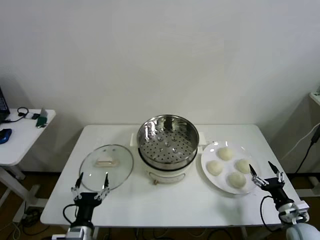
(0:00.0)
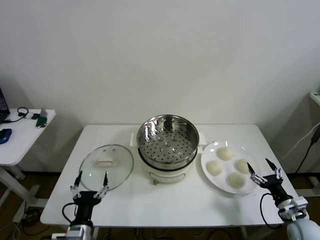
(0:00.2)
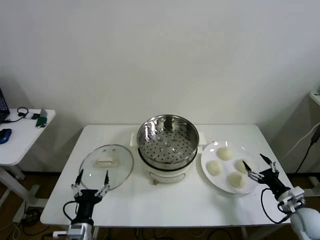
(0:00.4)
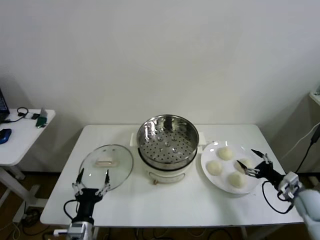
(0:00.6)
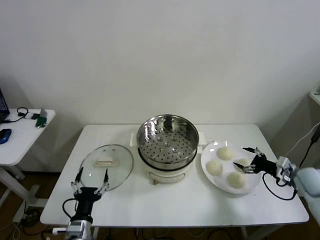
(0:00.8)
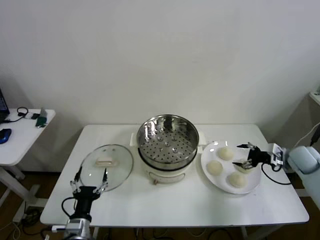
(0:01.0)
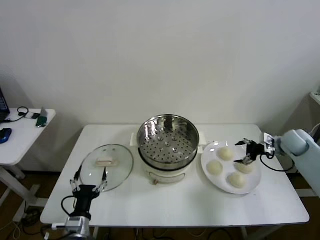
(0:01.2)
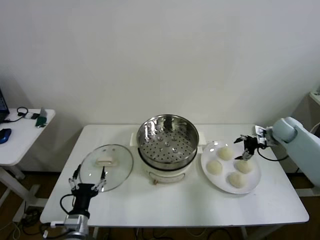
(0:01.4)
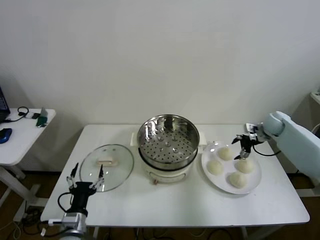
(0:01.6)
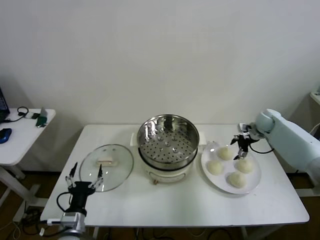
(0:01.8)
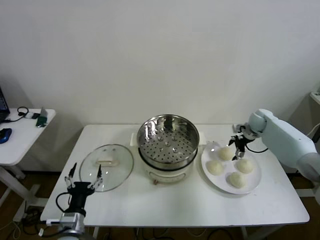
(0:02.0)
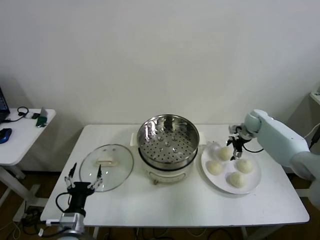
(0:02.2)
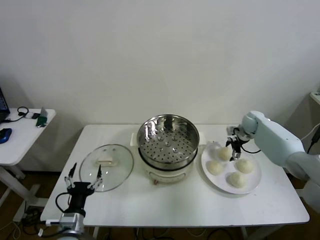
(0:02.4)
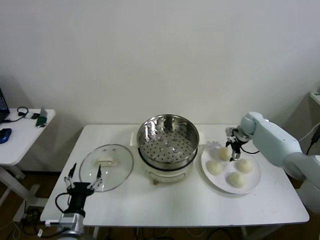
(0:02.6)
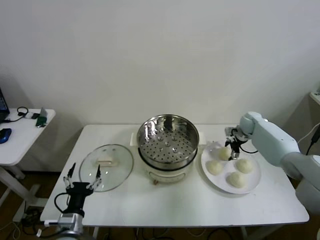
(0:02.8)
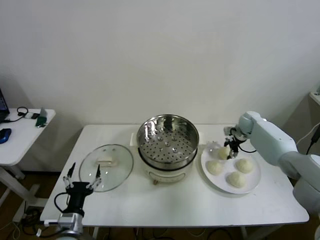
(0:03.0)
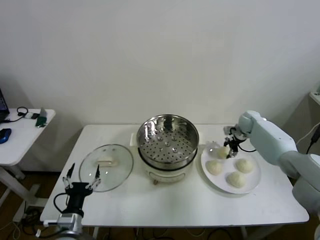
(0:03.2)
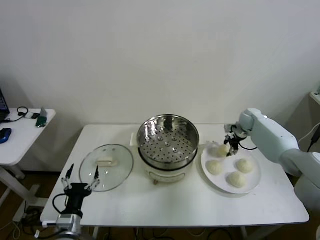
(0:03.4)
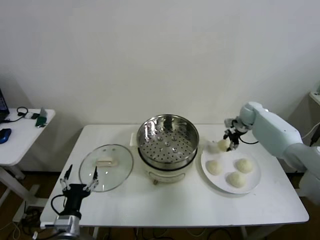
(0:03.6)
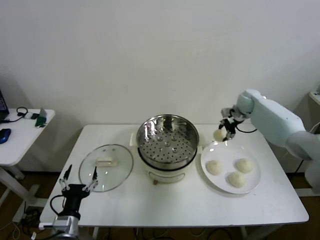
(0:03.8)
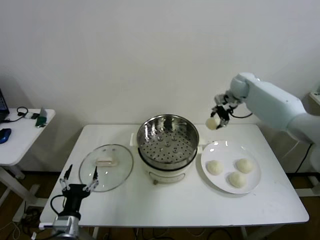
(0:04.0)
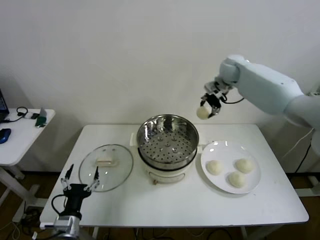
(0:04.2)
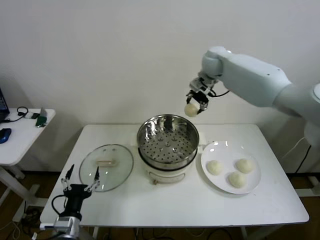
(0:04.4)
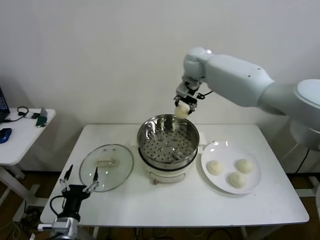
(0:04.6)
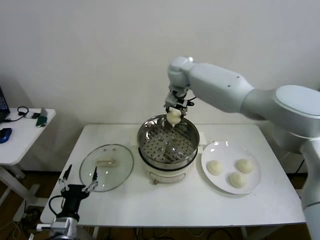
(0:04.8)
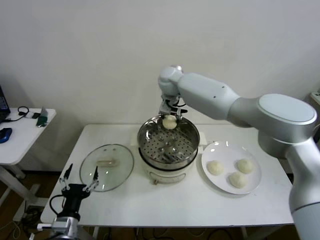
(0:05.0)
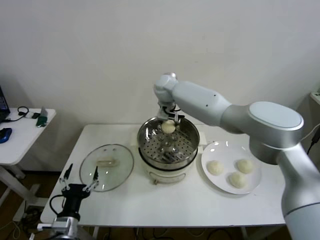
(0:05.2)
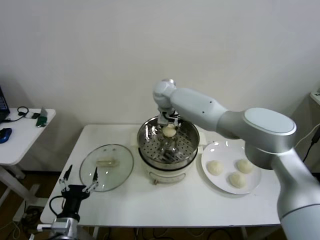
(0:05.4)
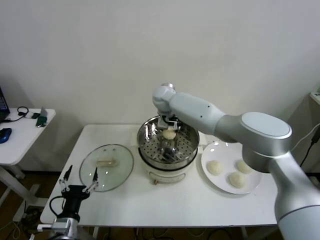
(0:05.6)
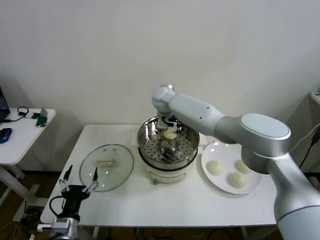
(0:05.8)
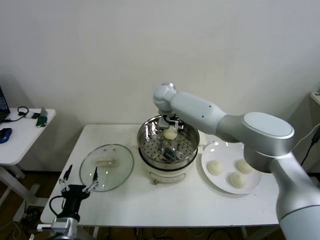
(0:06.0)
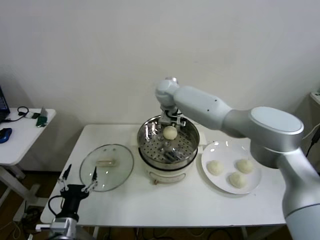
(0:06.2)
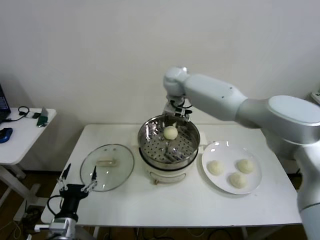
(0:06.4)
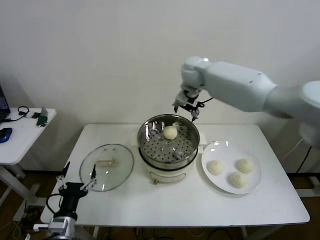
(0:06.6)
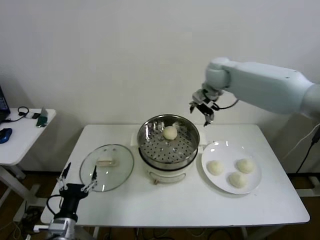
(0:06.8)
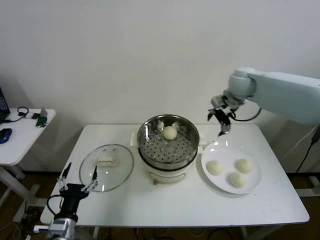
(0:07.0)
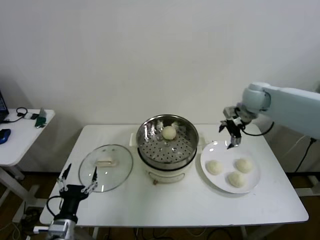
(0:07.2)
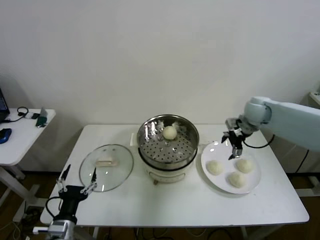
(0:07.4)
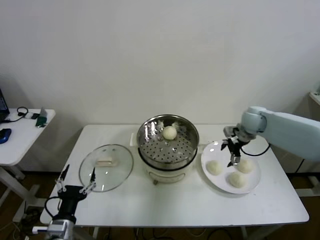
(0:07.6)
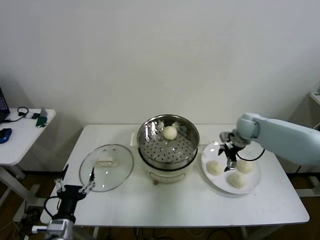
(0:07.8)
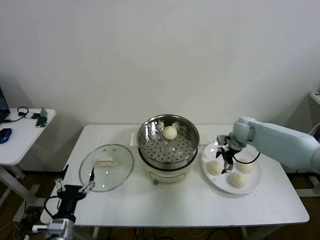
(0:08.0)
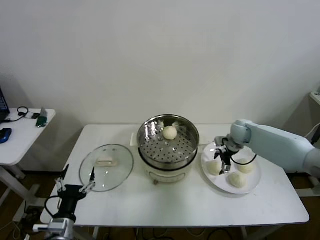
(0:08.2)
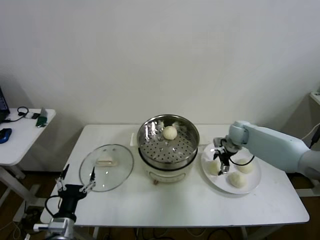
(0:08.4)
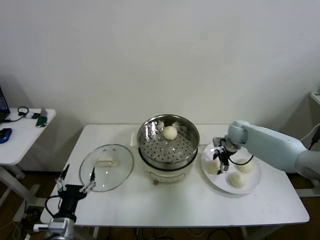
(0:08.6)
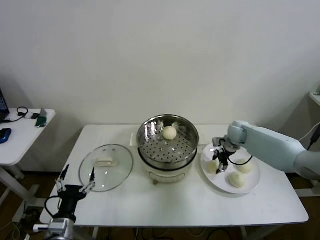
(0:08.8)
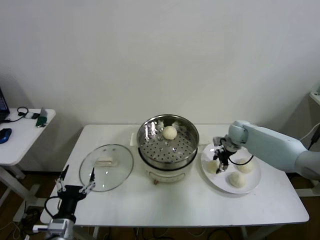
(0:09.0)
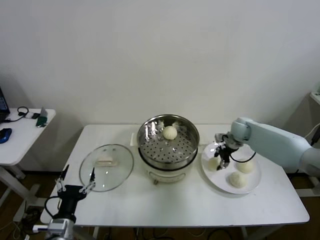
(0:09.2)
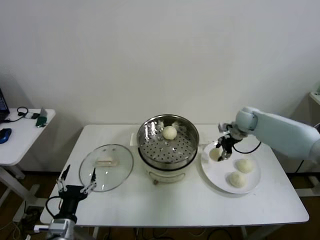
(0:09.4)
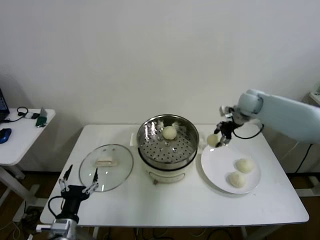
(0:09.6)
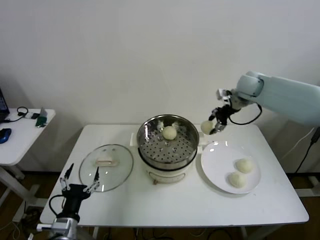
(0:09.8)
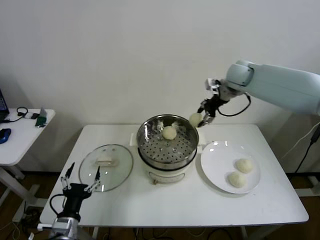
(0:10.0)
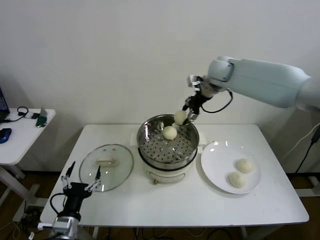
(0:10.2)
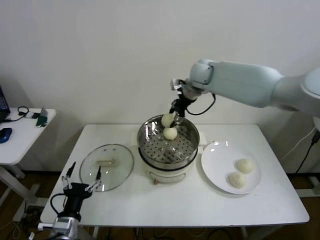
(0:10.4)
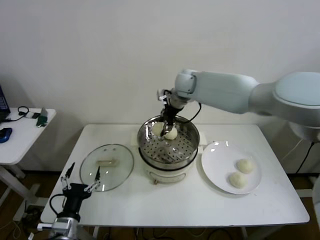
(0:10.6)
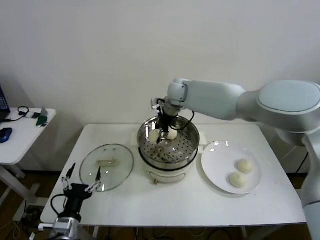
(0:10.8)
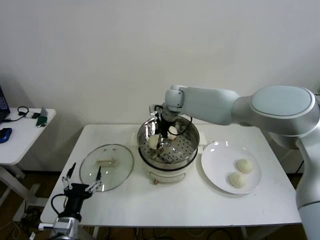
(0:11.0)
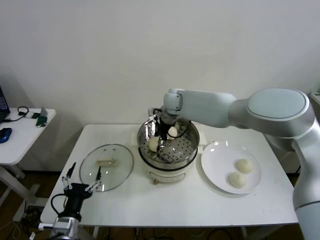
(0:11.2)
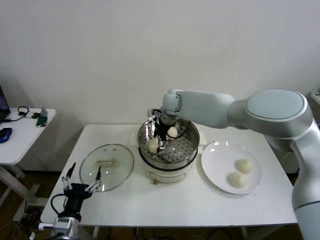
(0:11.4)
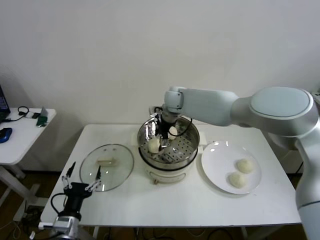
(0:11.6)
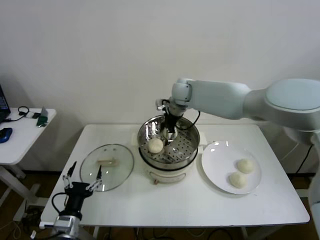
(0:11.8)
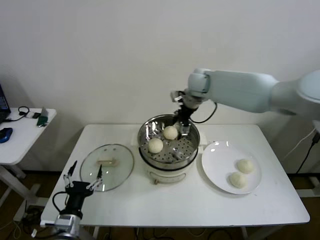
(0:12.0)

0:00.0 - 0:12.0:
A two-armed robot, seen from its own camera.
Step, 0:00.0 - 0:03.0: Grasp the baozi in the plate with right gripper.
Step, 0:03.2 - 0:05.8: Place the baozi on the steamer with right gripper.
Step, 0:06.0 - 0:09.0: Grasp the baozi in the plate with right gripper.
Step, 0:09.2 - 0:11.2: Place the baozi on the steamer with right gripper.
0:01.6 - 0:03.0: The right gripper shifts some 5 cm to the left, and closes.
0:03.0 - 0:04.4: The right gripper moves upward and to the left, roughly 35 cm.
0:04.4 - 0:06.0: The right gripper shifts some 20 cm to the left and downward, and opens.
0:06.0 - 0:07.6: The right gripper travels to the right by approximately 30 cm.
0:07.6 - 0:09.0: The right gripper shifts about 5 cm downward, and closes its fingers.
0:09.0 - 0:10.4: The right gripper shifts approximately 30 cm upward and to the left.
0:10.4 - 0:12.0: The right gripper opens up.

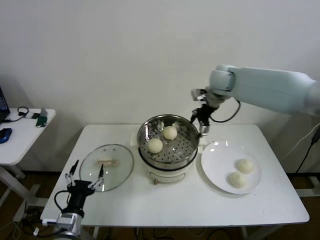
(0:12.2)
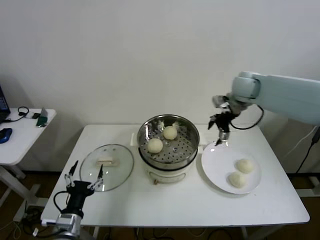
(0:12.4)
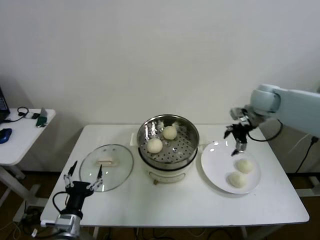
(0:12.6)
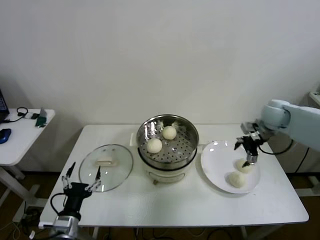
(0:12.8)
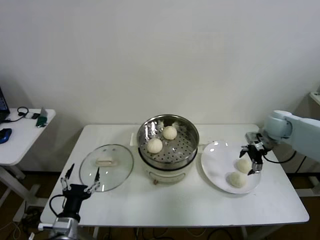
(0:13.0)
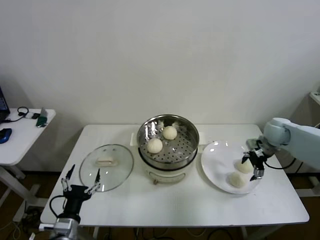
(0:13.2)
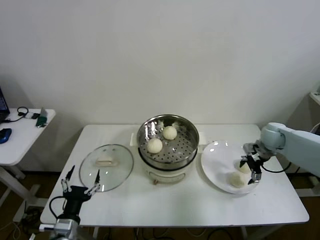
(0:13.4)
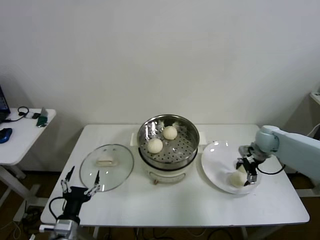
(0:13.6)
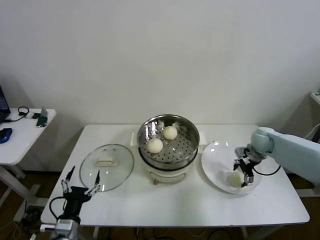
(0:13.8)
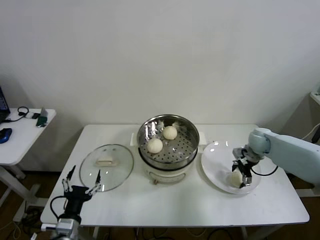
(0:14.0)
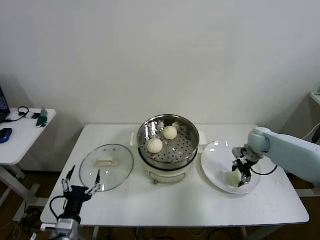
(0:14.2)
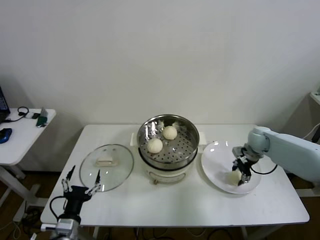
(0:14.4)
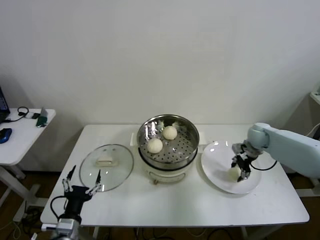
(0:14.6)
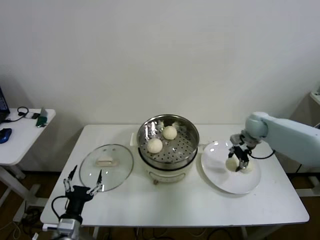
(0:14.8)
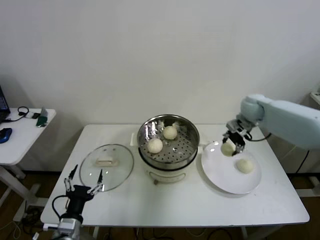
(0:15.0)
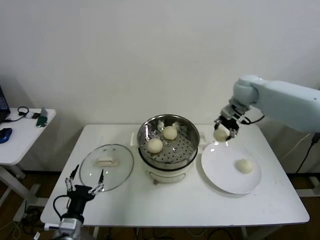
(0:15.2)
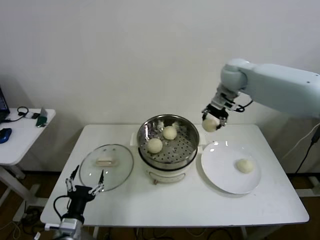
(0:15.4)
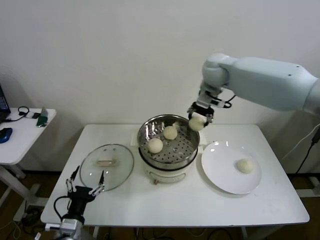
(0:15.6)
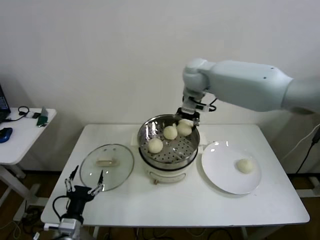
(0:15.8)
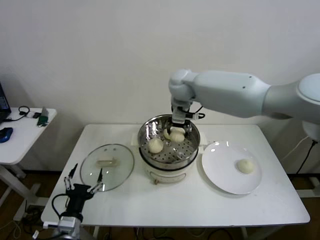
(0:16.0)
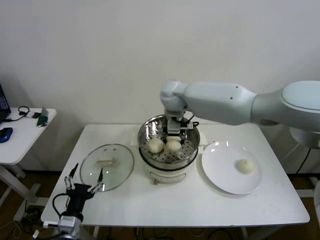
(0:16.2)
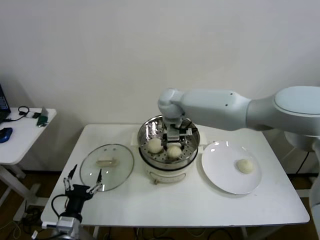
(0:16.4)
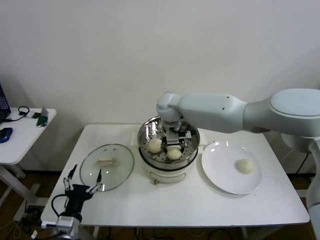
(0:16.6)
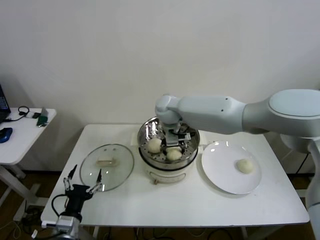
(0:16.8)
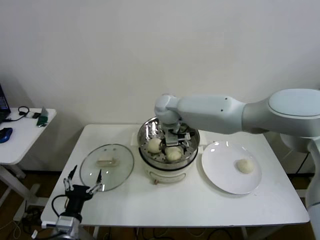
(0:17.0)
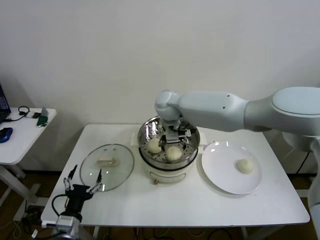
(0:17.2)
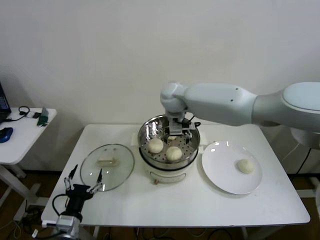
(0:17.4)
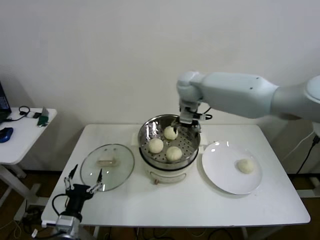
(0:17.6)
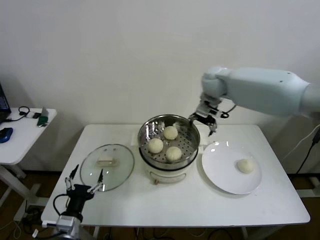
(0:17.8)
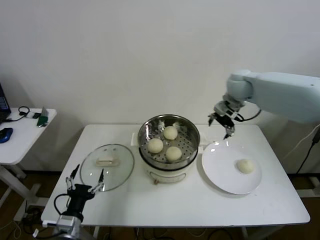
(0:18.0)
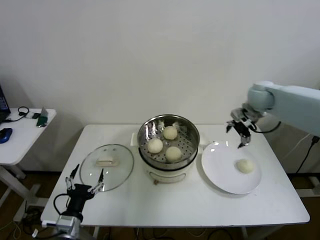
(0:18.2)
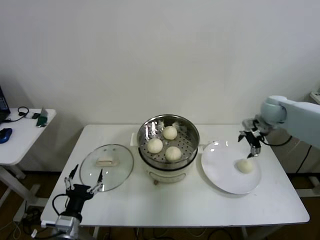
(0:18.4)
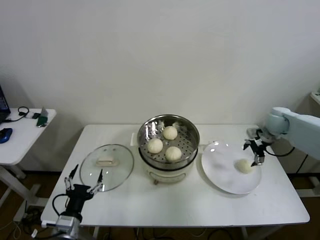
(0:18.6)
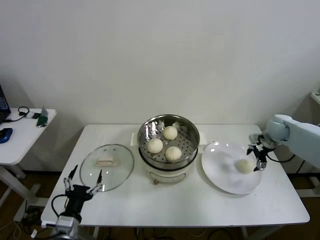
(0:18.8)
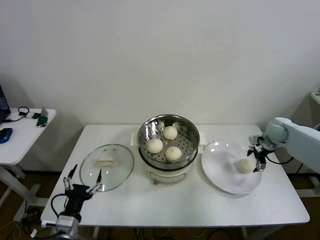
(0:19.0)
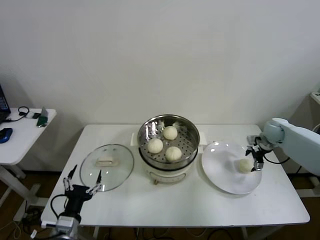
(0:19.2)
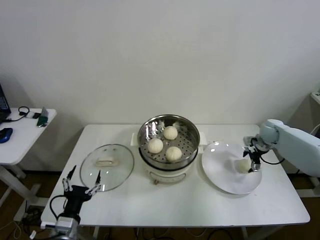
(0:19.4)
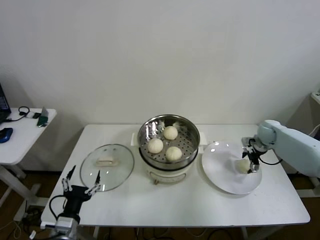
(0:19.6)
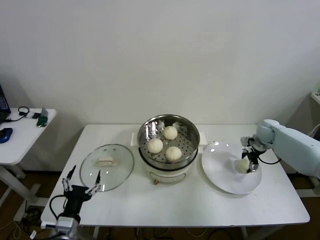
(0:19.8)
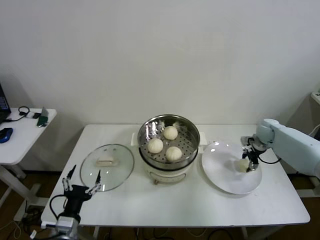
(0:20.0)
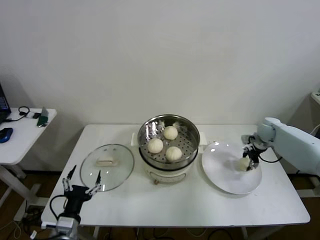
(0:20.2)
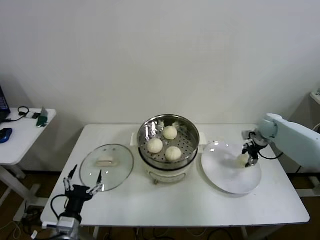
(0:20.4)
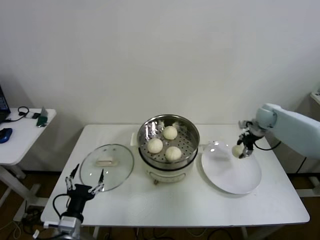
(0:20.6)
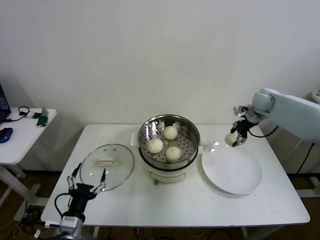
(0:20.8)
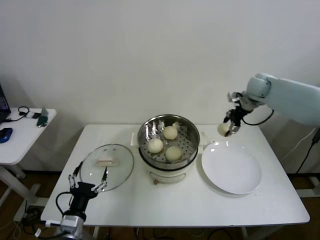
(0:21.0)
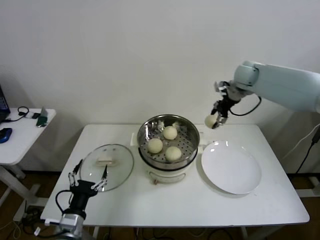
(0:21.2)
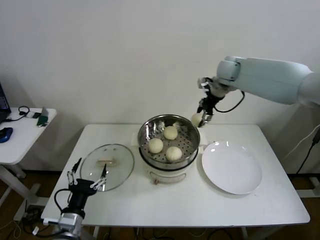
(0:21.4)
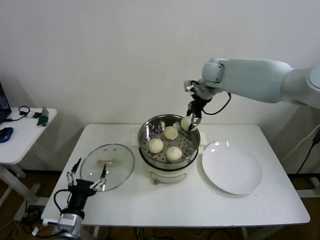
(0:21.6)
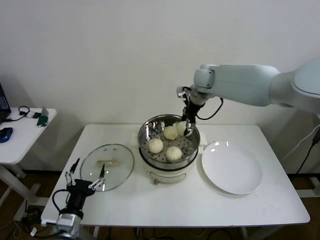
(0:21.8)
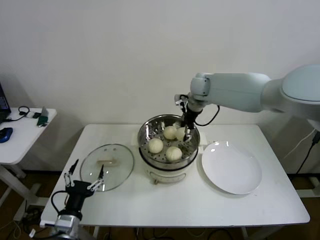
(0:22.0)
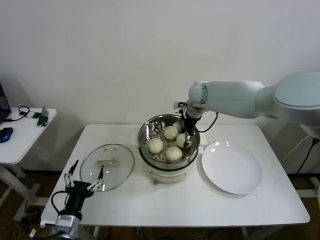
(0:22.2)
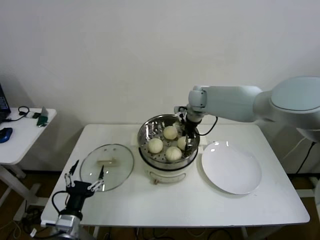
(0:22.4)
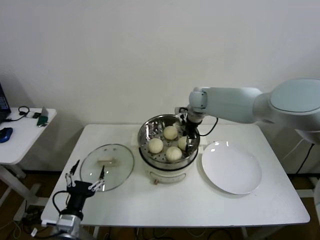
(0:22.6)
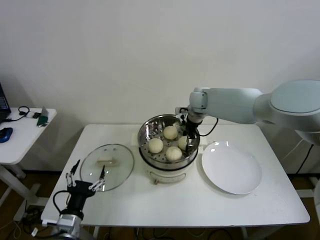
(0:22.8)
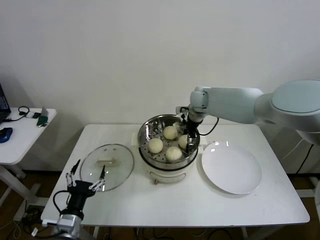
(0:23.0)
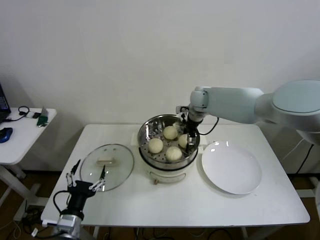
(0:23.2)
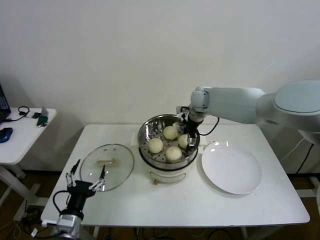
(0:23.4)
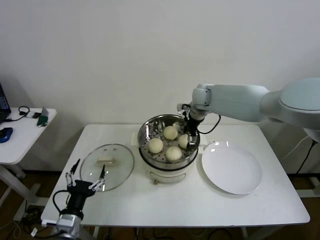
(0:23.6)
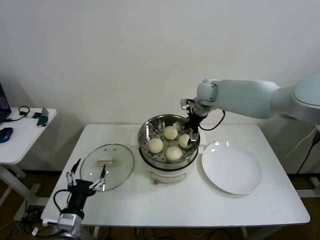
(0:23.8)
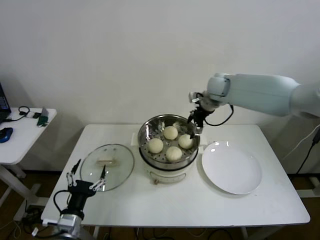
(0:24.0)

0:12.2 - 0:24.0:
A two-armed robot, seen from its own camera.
Step, 0:12.2 - 0:14.4: Grasp the baozi in the plate with right gripper.
Step, 0:14.6 - 0:17.0: Place the baozi on the steamer with right gripper.
Step, 0:17.2 - 0:20.0: Grasp the baozi in the plate with right gripper.
Step, 0:20.2 - 0:23.4: Place the baozi on the steamer with right gripper.
0:12.2 - 0:13.6: The right gripper shifts about 25 cm downward and to the right.
0:13.6 - 0:15.2: The right gripper shifts roughly 25 cm upward and to the left, and closes up.
0:15.2 - 0:16.6: The right gripper heads to the left, covering about 25 cm.
0:16.6 - 0:18.2: The right gripper travels to the right by about 35 cm, and opens up.
0:18.2 - 0:19.6: The right gripper travels downward and to the right by some 20 cm.
0:19.6 - 0:21.0: The right gripper moves upward and to the left, approximately 20 cm, and closes its fingers.
0:21.0 - 0:22.6: The right gripper travels to the left by some 20 cm.
0:22.6 - 0:24.0: The right gripper heads upward and to the right, covering roughly 10 cm, and opens.
